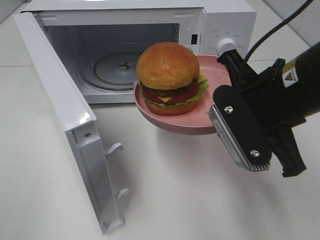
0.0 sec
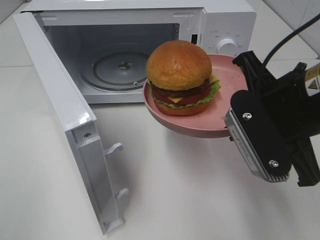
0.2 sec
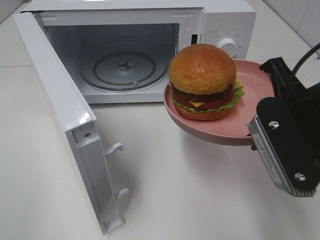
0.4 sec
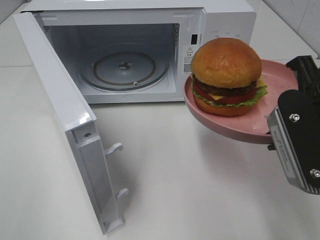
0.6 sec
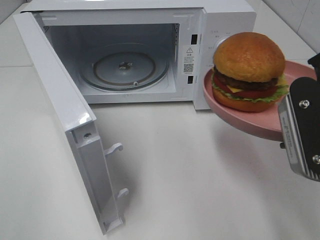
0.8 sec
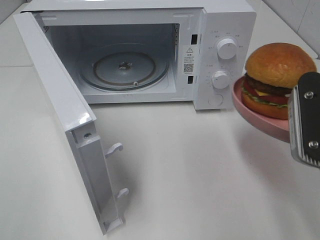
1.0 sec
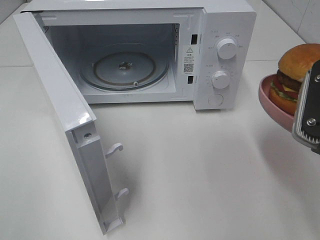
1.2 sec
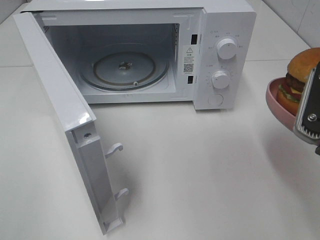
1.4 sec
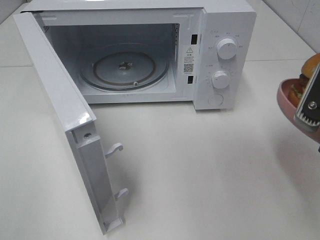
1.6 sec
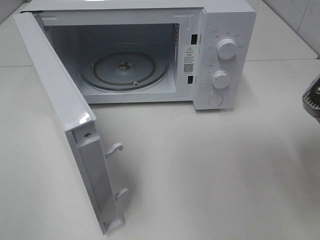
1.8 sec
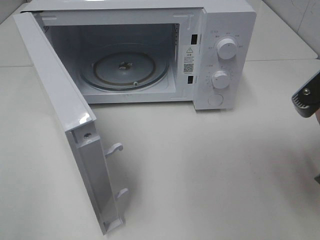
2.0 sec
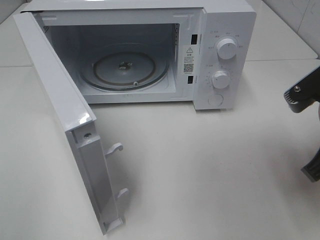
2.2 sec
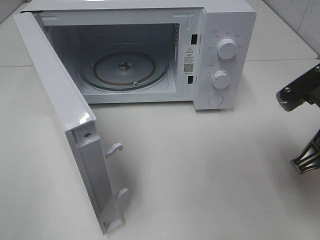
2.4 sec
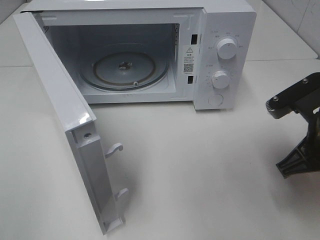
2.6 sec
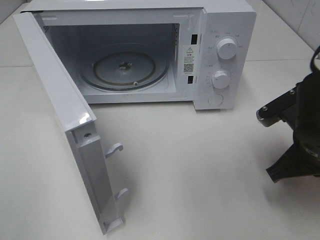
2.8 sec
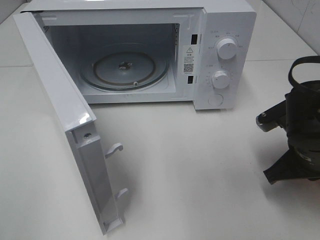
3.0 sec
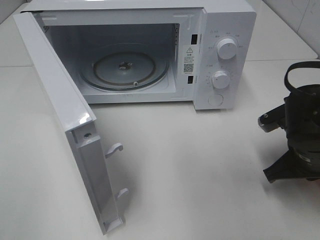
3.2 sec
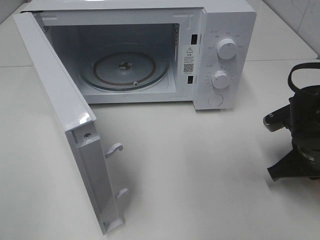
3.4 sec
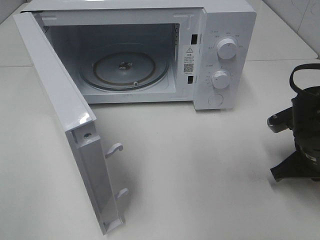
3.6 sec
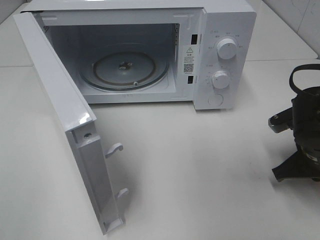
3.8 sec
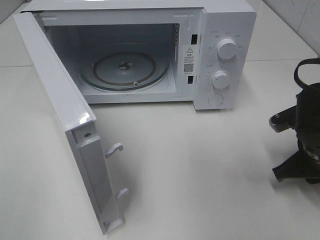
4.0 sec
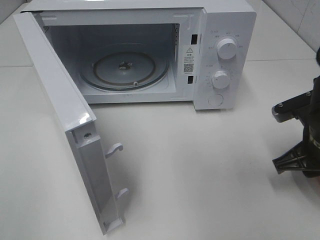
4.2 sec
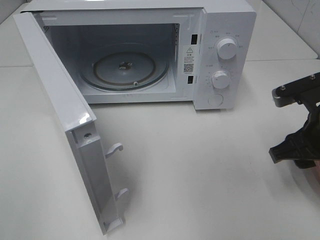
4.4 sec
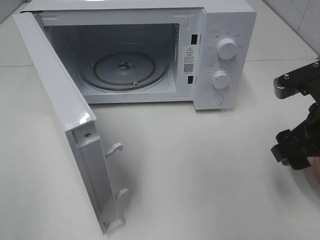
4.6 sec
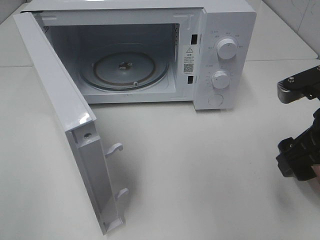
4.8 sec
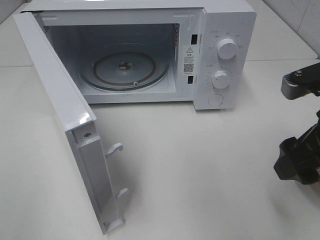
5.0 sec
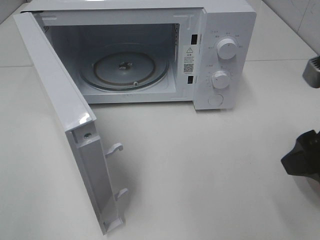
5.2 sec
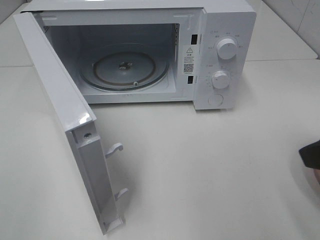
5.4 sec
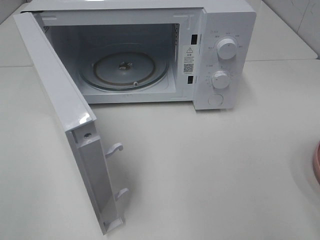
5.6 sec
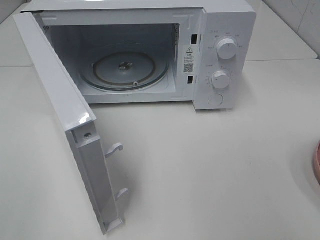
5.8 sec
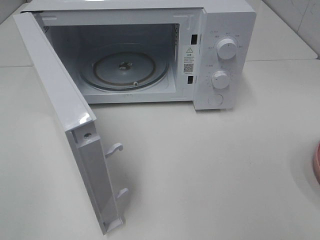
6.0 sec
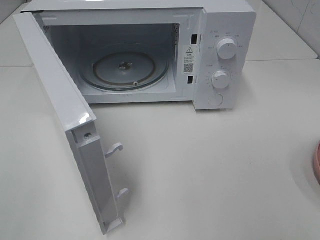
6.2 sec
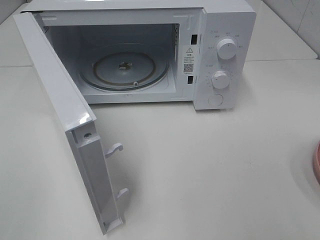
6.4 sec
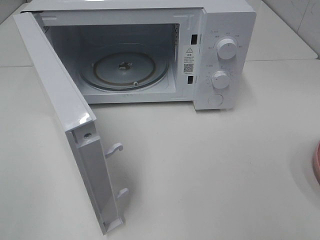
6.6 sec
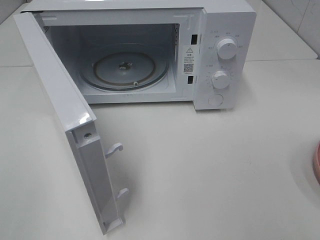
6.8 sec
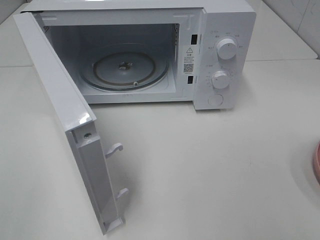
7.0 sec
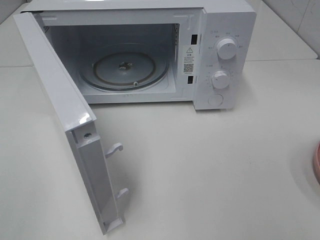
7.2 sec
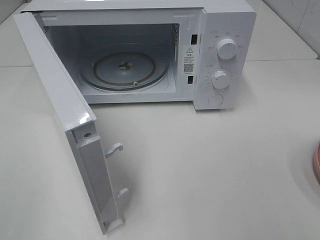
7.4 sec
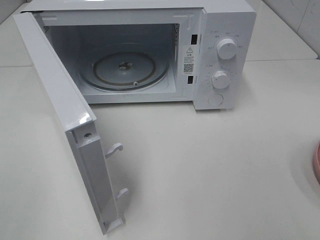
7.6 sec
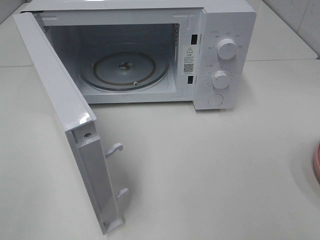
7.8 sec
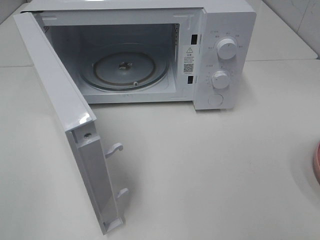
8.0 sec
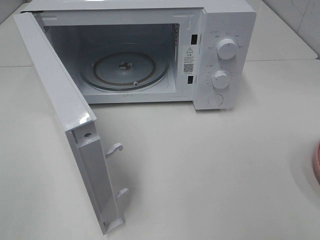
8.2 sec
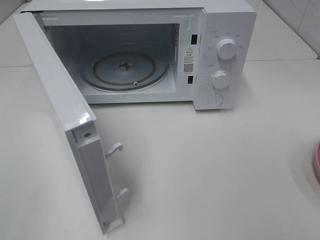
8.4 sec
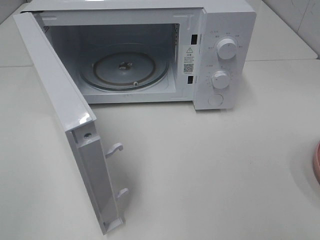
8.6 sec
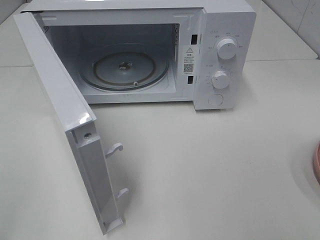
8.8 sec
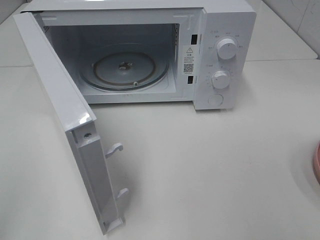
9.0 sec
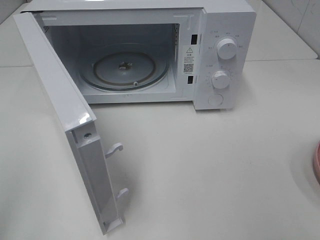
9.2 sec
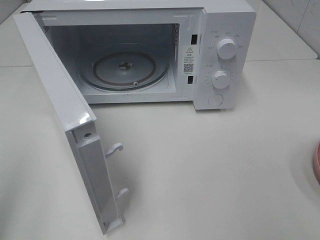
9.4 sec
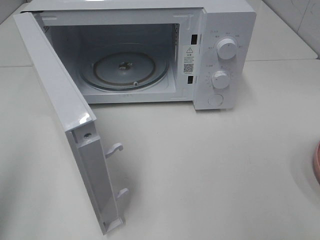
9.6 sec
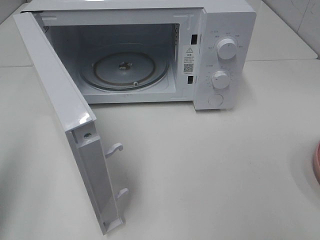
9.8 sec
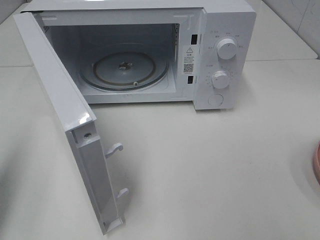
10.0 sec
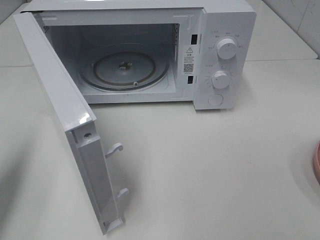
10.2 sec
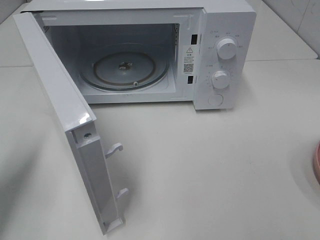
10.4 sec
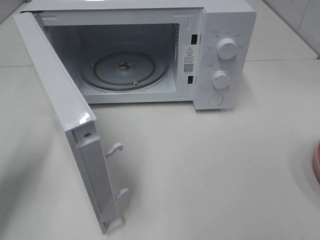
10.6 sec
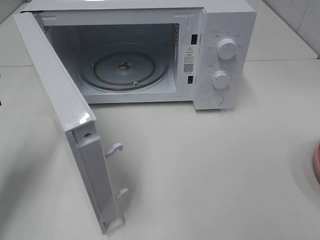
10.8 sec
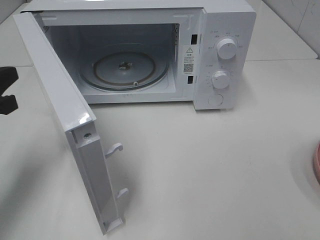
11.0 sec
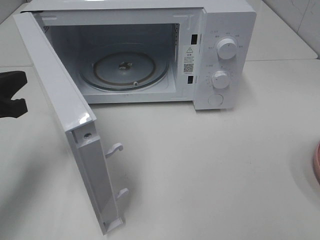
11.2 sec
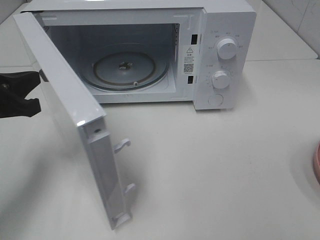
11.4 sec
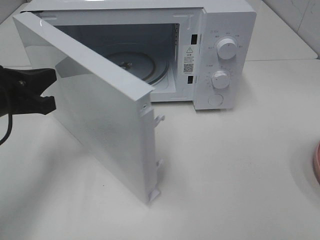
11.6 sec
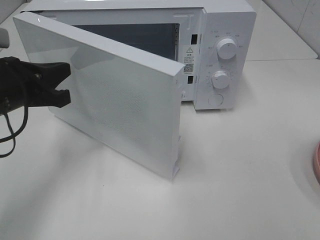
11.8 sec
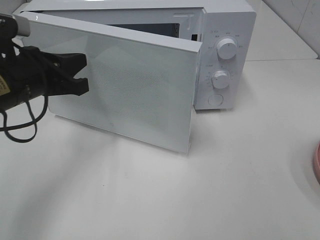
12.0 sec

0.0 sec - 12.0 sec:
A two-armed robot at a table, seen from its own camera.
Task of the whole recording: Heat the burger.
Step, 0.0 sec - 3.8 sec: Right hand: place the plate on the table.
0.0 sec - 1.6 sec: The right gripper is displaced to the right and backward by some 10 cm.
1.6 sec - 3.0 sec: The right gripper shifts some 15 cm downward and forward.
3.0 sec - 4.4 sec: The right gripper ends up some 5 cm from where it was, and opens.
4.4 sec - 6.0 sec: The right gripper shifts about 25 cm backward and upward.
9.0 sec - 10.4 sec: The left gripper is displaced forward and downward by some 20 cm.
10.4 sec - 12.0 sec: The left gripper is displaced to the right and forward by roughly 15 cm.

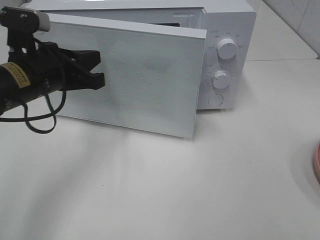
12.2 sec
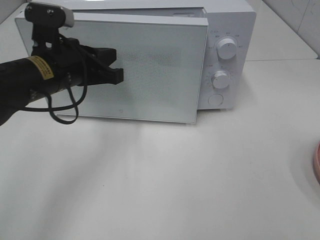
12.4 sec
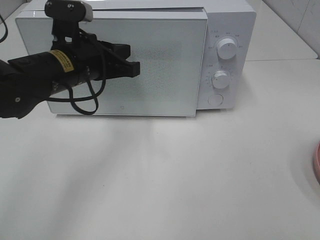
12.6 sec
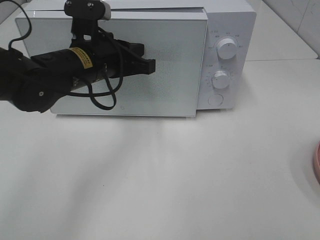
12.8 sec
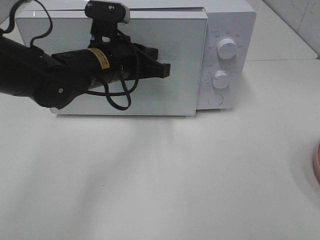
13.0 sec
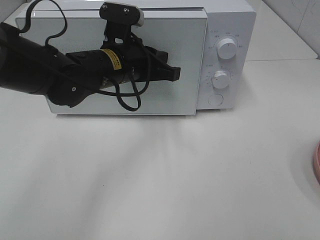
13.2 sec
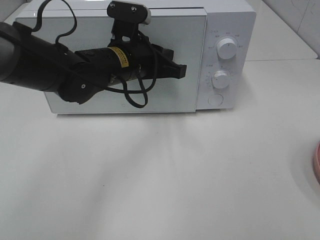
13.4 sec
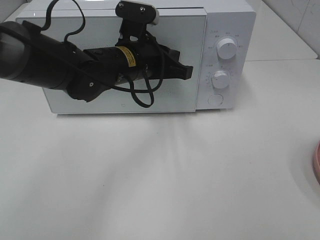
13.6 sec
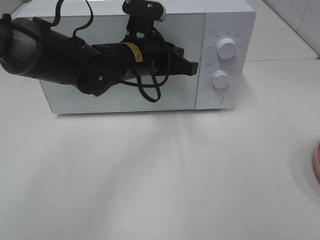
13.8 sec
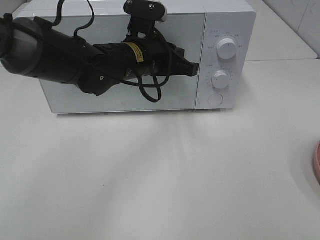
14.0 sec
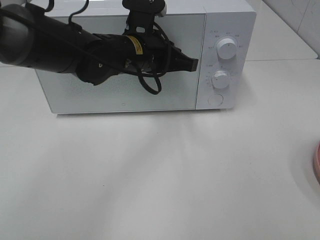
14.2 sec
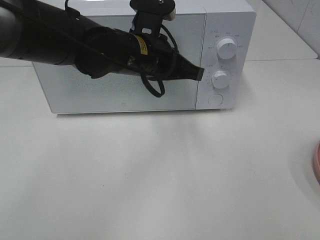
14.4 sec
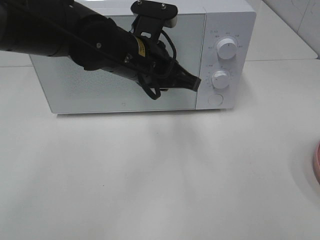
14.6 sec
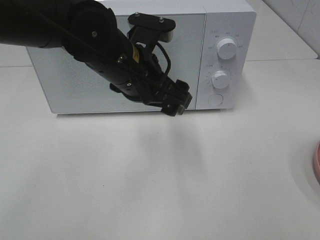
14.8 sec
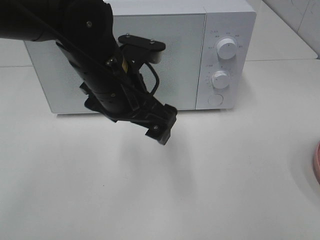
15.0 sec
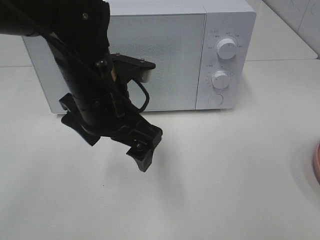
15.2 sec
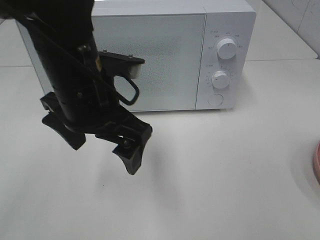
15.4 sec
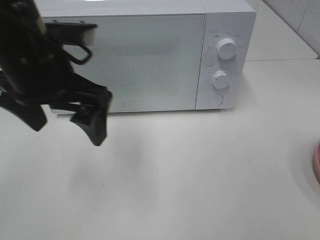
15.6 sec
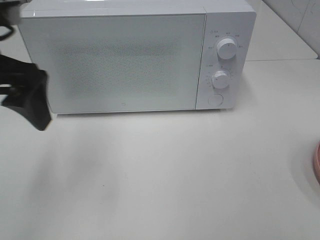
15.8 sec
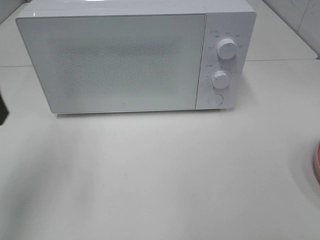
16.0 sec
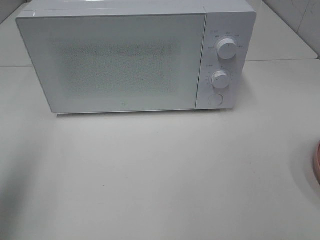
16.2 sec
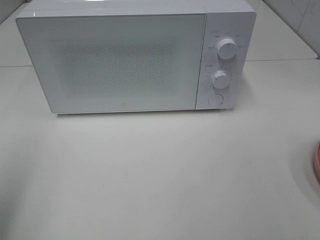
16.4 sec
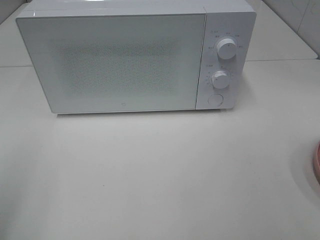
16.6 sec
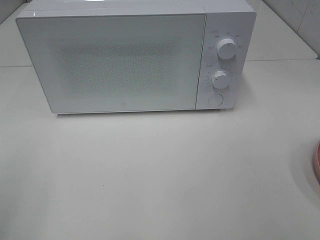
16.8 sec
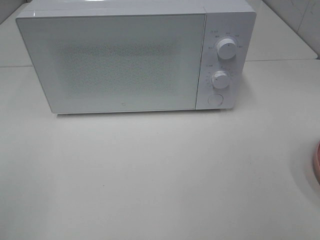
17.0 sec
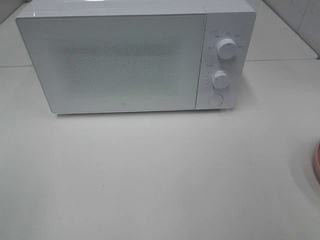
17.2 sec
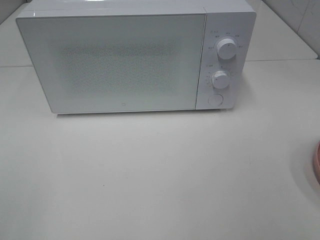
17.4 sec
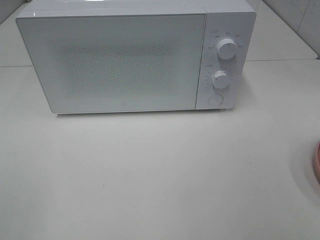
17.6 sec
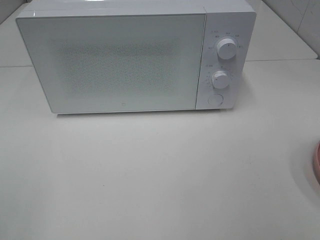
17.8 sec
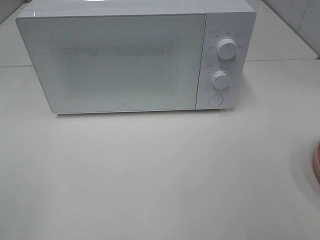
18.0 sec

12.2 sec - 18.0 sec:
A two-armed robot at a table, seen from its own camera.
Task of the whole recording: Heat the burger.
Step, 12.2 sec - 14.2 sec: Left hand: close the microwave door.
12.2 sec - 13.6 sec: The left gripper is displaced to the right and forward by about 15 cm.
13.6 sec - 15.0 sec: The left gripper goes approximately 10 cm backward, and opens its fingers.
15.0 sec - 16.6 sec: The left gripper travels to the left and backward by some 35 cm.
